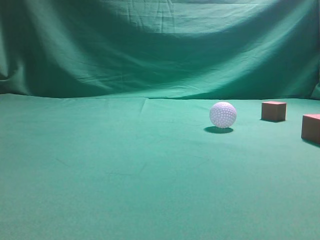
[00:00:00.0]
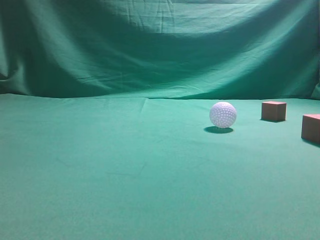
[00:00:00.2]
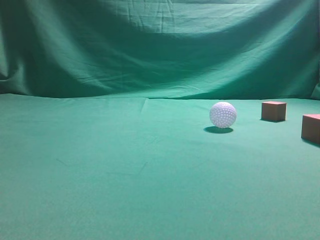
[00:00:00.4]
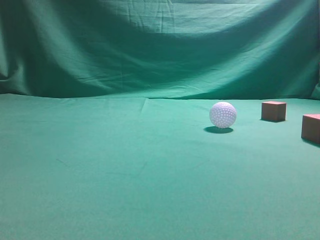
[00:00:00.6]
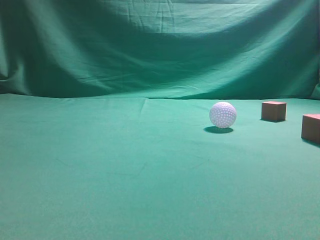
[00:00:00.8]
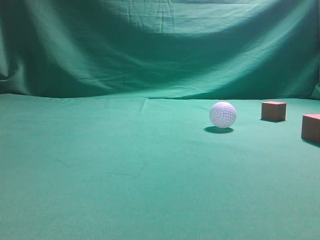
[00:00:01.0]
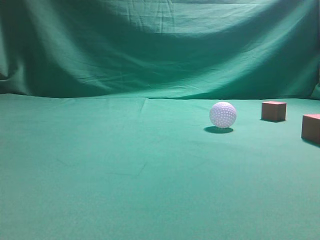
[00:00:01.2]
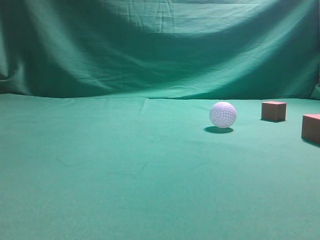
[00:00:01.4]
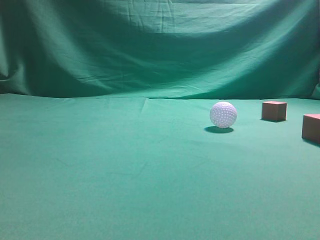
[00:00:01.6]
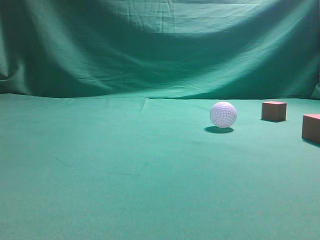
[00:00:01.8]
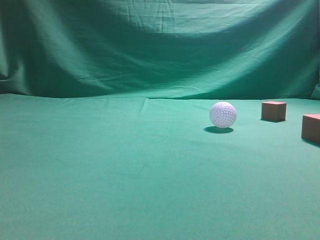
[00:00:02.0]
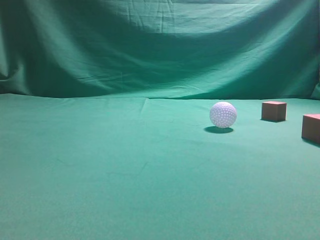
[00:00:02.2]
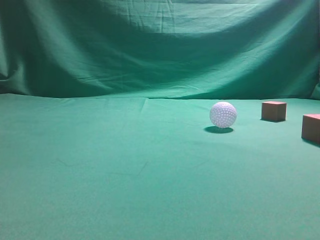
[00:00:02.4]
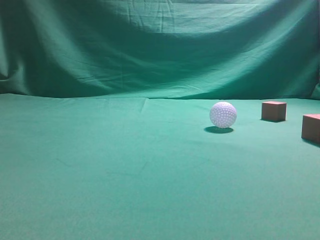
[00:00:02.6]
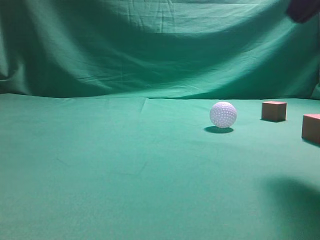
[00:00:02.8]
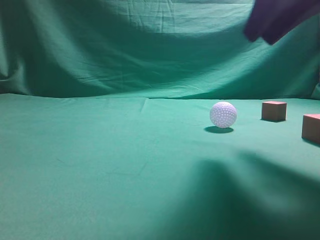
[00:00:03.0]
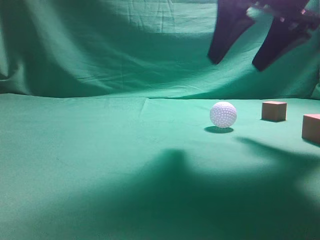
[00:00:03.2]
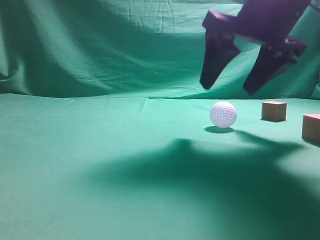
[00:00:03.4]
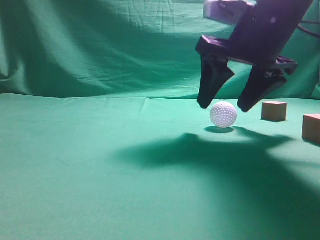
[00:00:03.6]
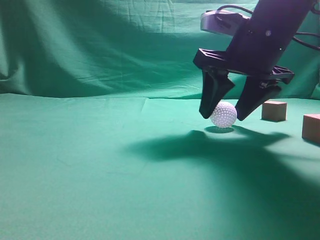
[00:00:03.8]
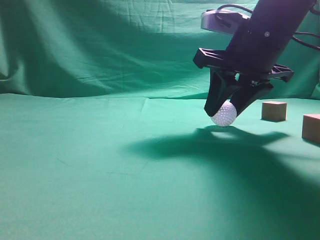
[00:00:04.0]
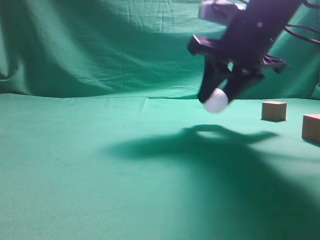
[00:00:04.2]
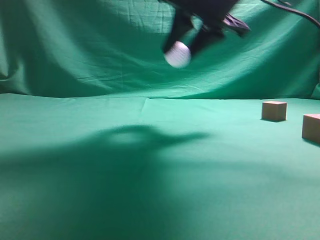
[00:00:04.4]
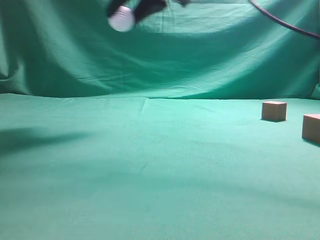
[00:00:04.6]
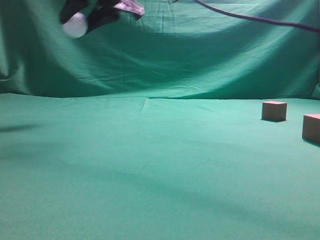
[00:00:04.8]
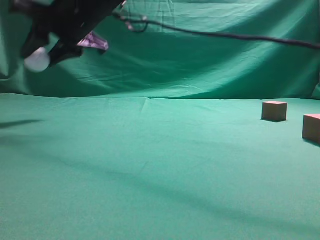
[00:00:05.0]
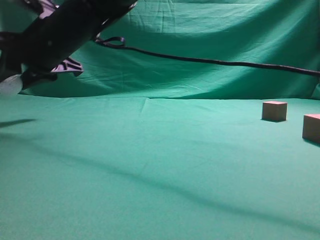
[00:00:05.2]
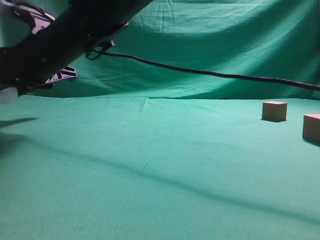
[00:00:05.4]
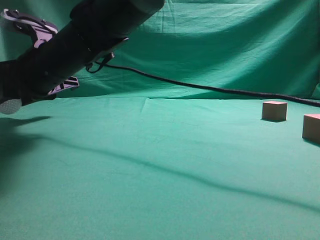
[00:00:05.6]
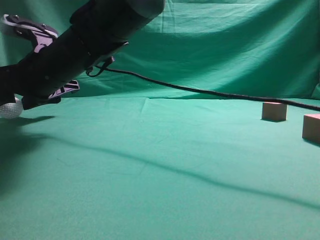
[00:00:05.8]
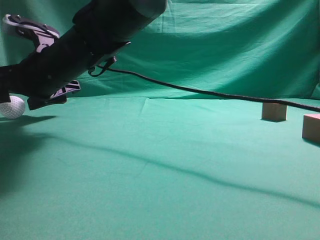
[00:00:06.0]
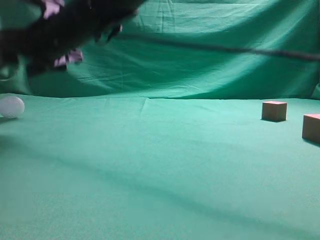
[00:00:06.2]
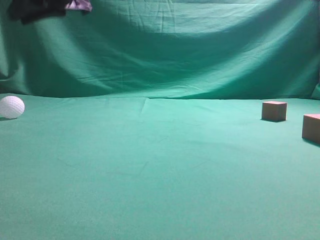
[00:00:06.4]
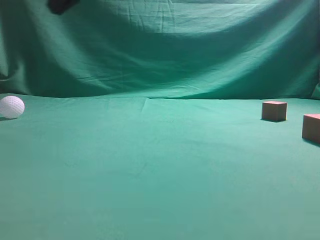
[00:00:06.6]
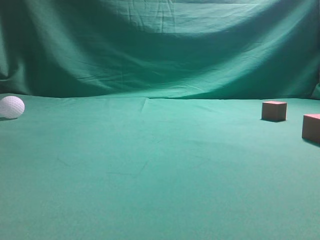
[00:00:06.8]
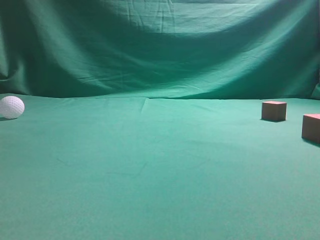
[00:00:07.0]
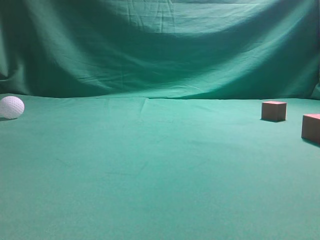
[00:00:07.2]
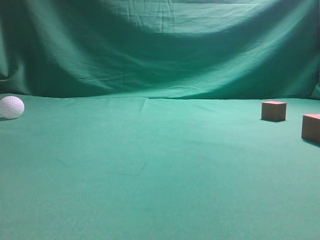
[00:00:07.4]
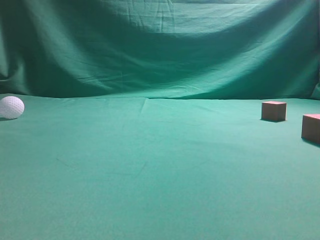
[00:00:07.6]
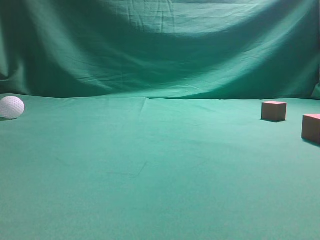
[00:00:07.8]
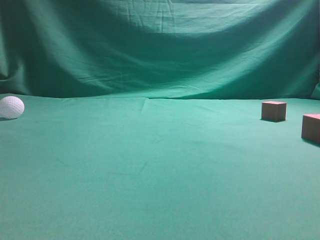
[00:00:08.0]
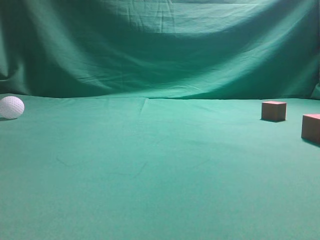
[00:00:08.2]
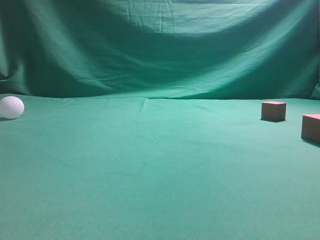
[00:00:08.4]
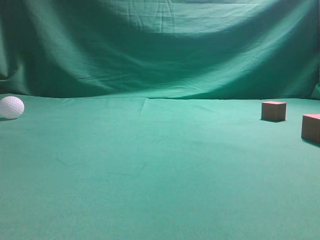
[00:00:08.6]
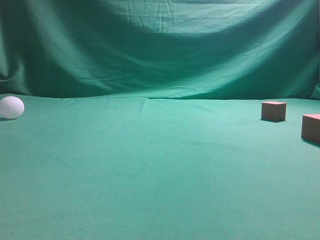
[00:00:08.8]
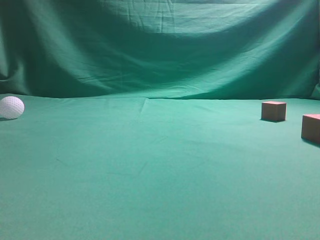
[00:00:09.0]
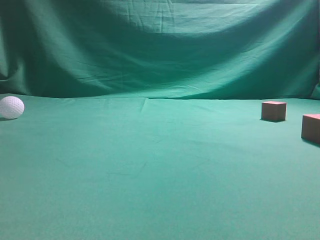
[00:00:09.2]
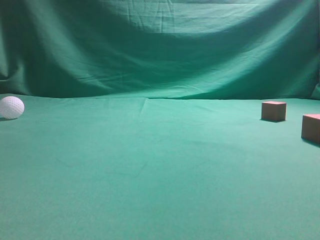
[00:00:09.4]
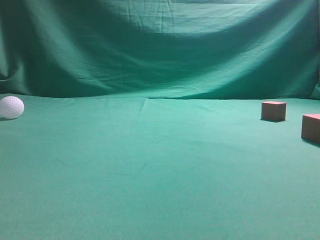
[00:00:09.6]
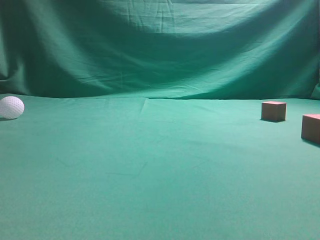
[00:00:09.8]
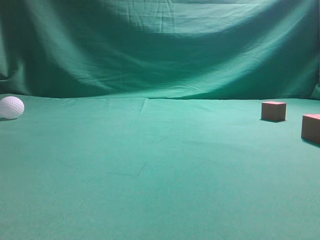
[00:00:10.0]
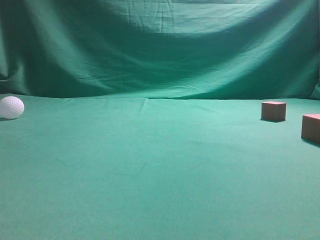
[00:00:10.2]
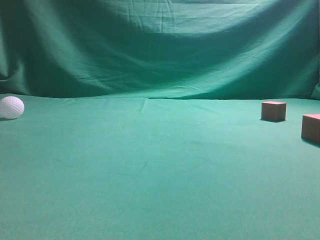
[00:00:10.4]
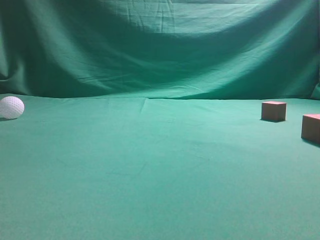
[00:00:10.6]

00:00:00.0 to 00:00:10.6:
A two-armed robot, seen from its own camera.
Step, 00:00:00.0 to 00:00:03.4: Grasp the spherical object on the right side.
00:00:01.6 to 00:00:03.0: The right gripper shifts some 25 cm forward and to the left, and opens.
00:00:03.0 to 00:00:04.6: The right gripper moves to the left and forward, approximately 20 cm.
00:00:04.6 to 00:00:06.0: The right gripper shifts roughly 20 cm downward and to the left, and opens up.
00:00:06.0 to 00:00:07.6: The right gripper shifts some 50 cm upward, to the right and backward, and closes up.
